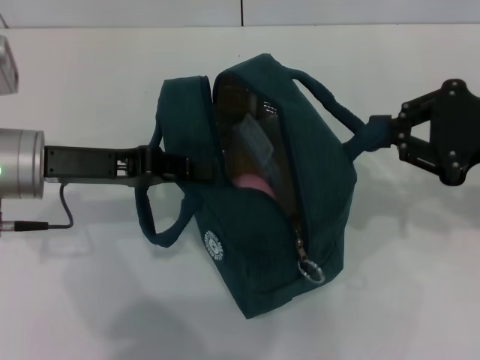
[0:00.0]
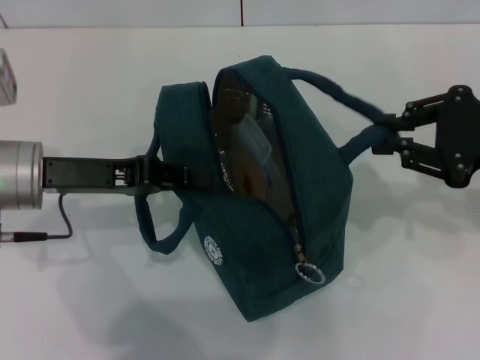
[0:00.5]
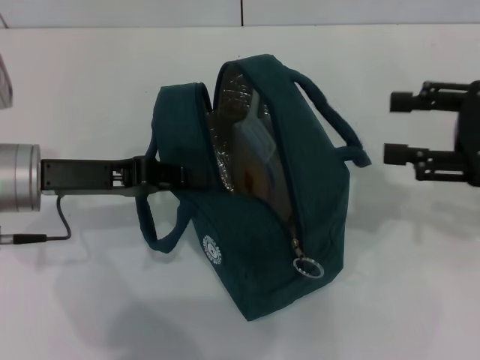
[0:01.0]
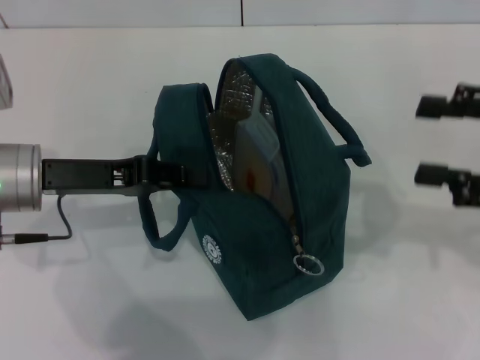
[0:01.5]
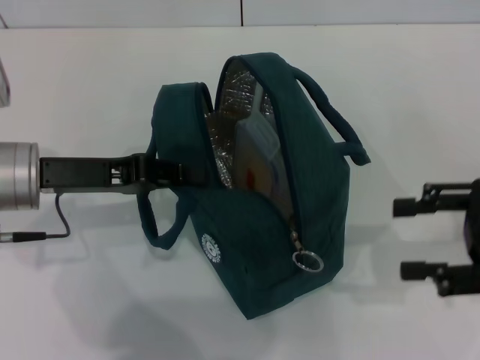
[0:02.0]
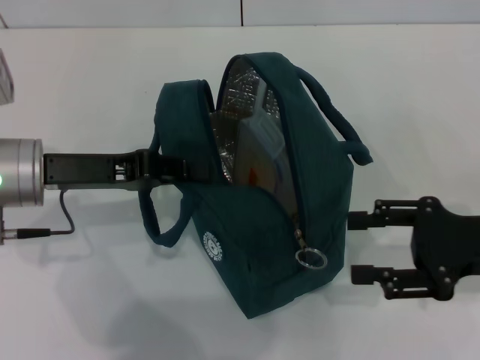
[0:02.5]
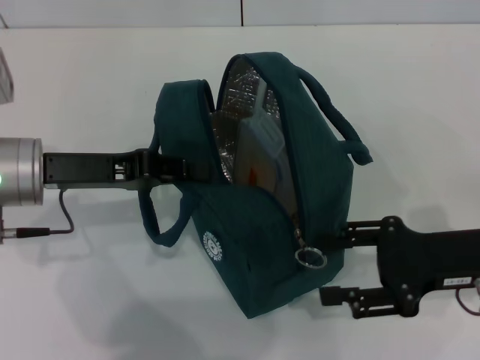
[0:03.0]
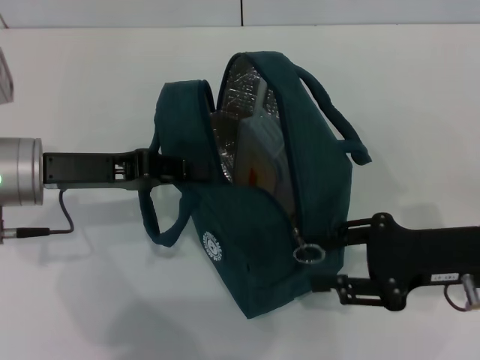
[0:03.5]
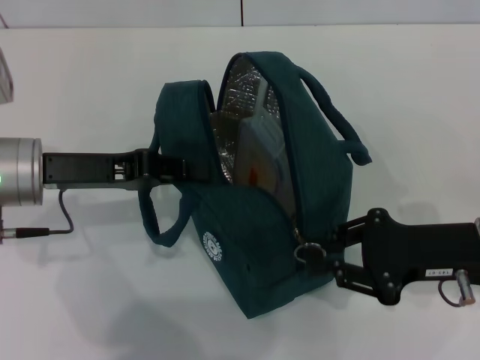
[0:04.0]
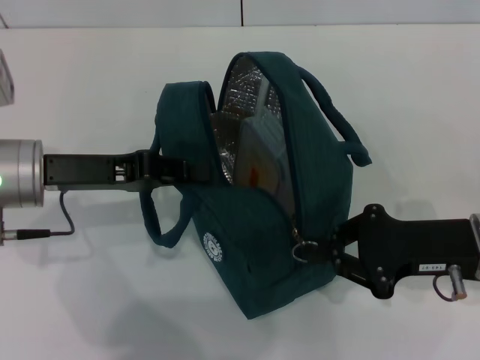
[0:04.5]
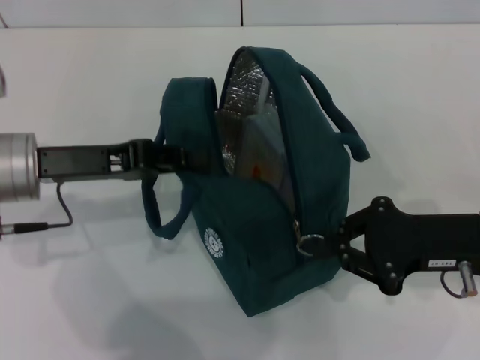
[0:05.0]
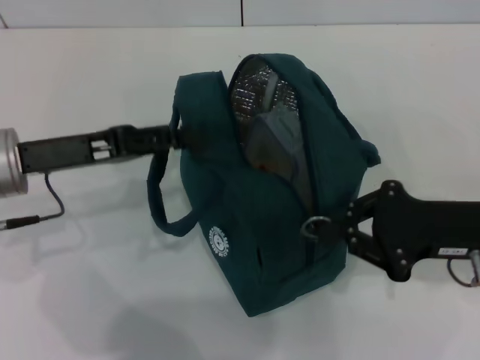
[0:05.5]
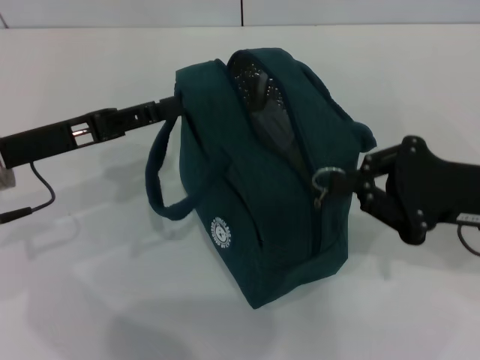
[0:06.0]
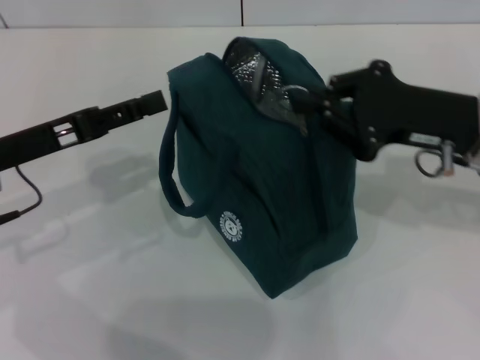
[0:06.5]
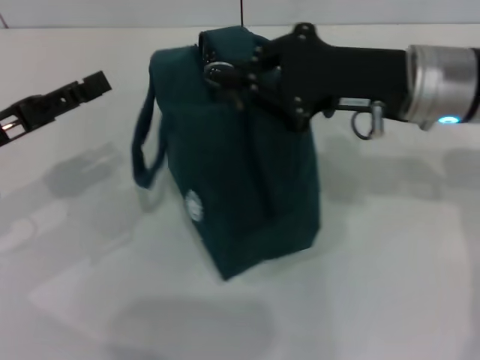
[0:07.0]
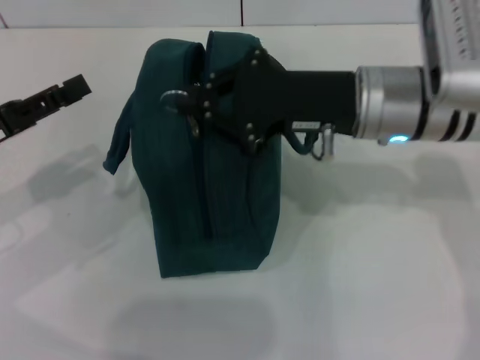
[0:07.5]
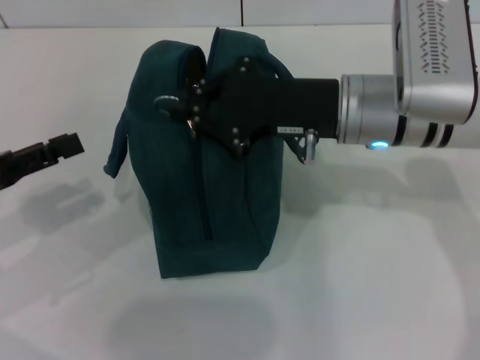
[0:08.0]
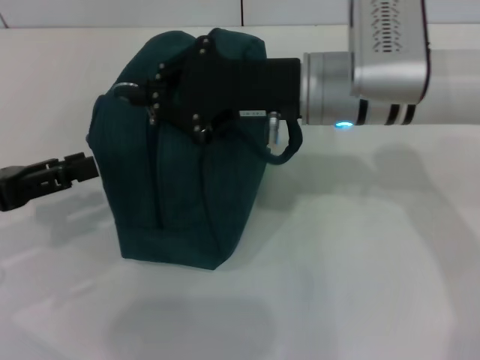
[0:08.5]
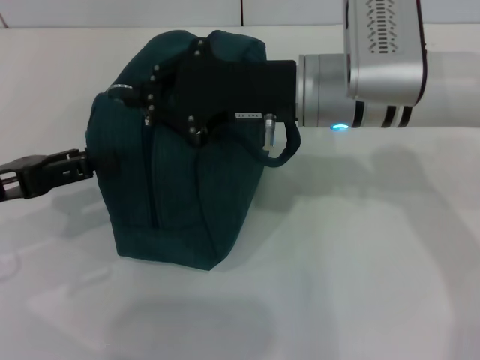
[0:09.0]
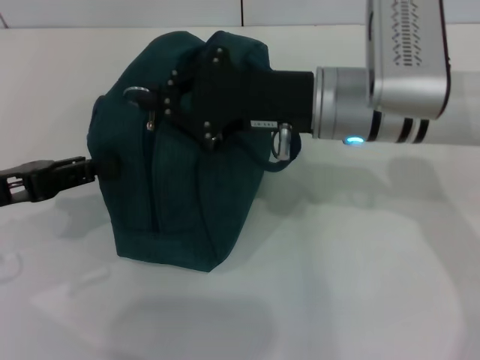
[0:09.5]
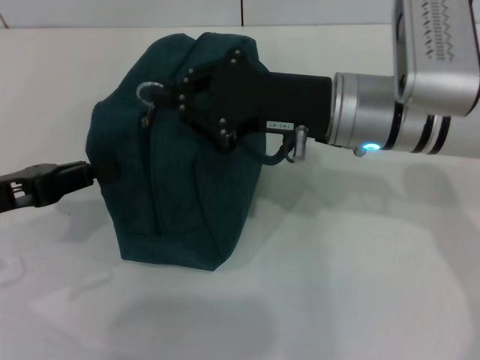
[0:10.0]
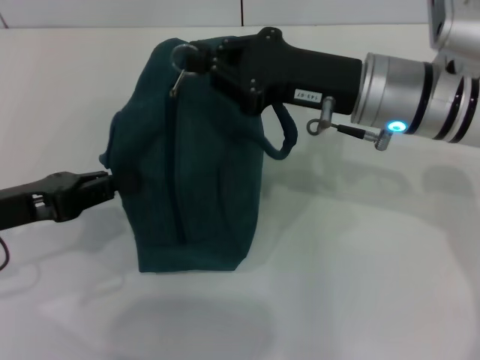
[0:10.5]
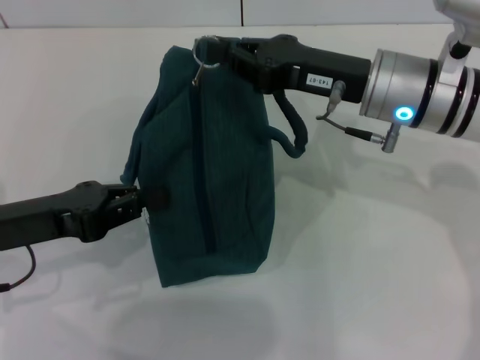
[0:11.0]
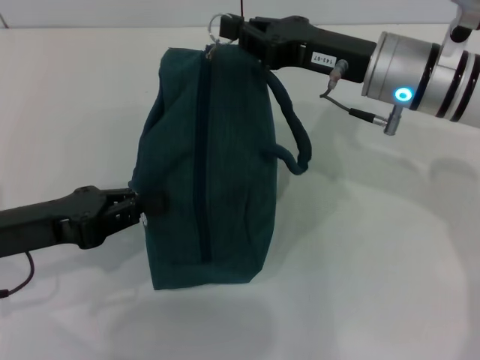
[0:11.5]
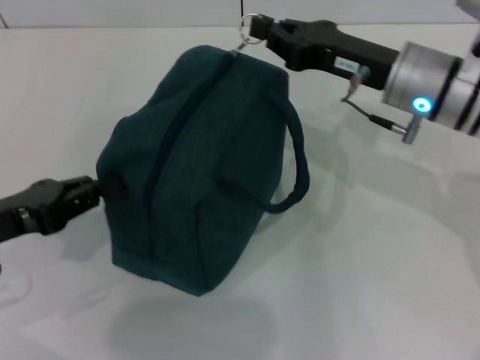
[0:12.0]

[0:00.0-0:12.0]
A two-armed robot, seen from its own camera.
0:00.0 to 0:02.0: The right gripper travels backward by some 5 cm, and opens its fingers.
0:02.0 to 0:04.0: The right gripper travels to the left and downward by some 10 cm, and closes up.
0:04.0 to 0:06.0: The left gripper opens its fingers.
0:06.0 to 0:08.0: The left gripper is displaced to the left and backward by approximately 10 cm. Meanwhile the right gripper moves to the left and forward, some 15 cm.
0:08.0 to 0:10.0: The left gripper closes its fingers.
0:10.0 to 0:12.0: The right gripper heads to the right, covering about 5 cm.

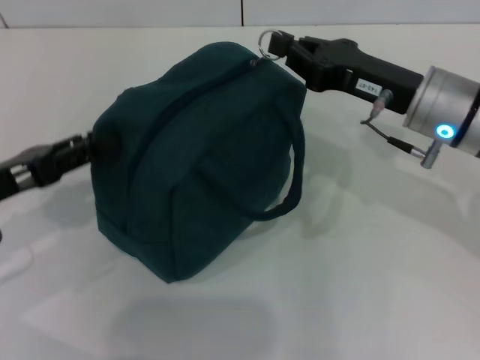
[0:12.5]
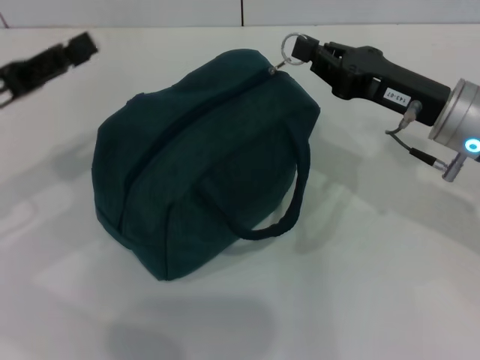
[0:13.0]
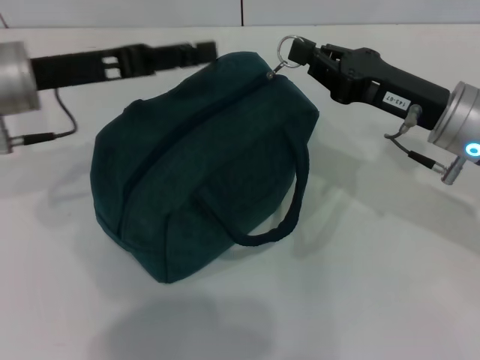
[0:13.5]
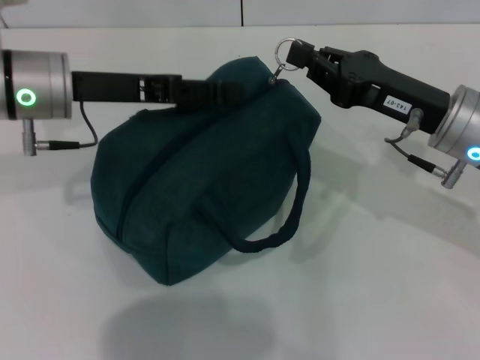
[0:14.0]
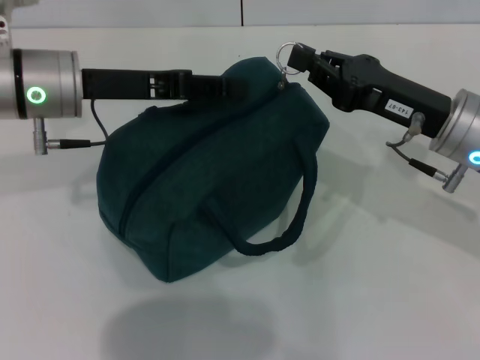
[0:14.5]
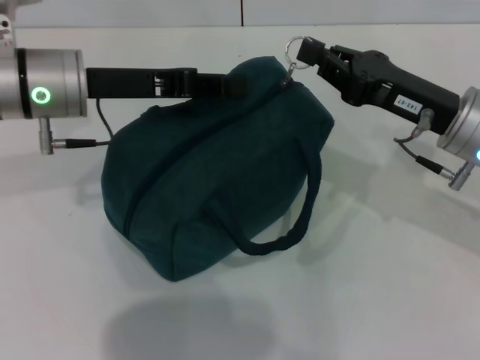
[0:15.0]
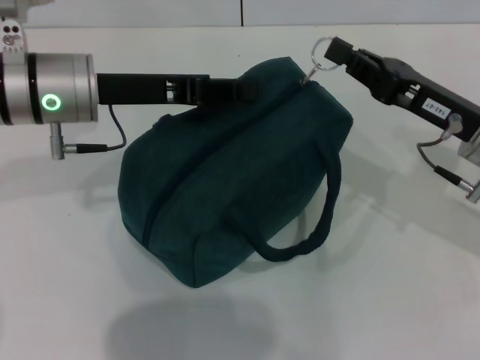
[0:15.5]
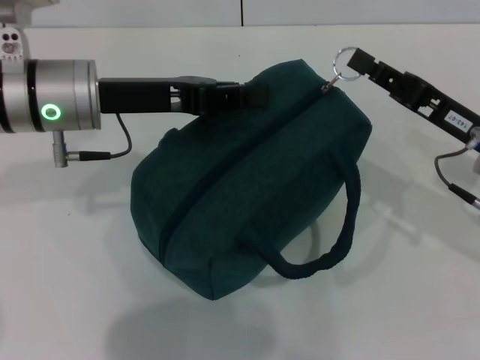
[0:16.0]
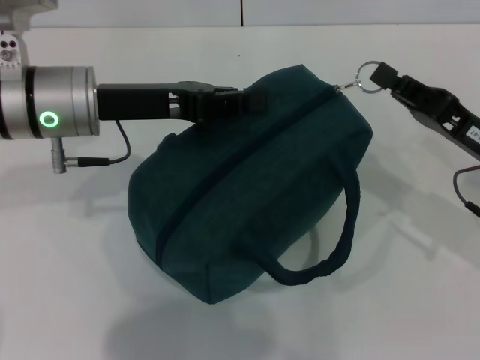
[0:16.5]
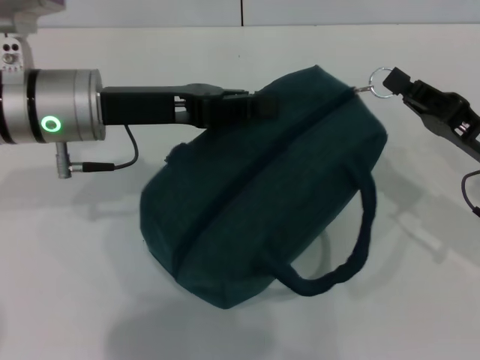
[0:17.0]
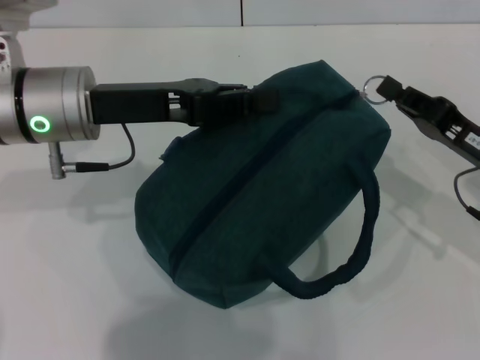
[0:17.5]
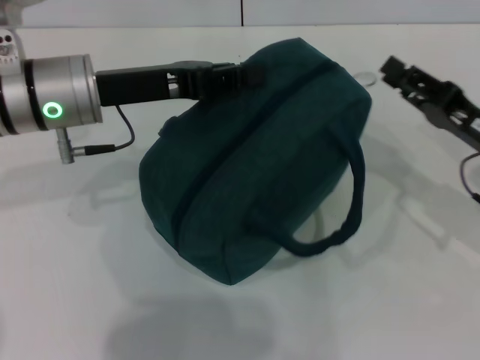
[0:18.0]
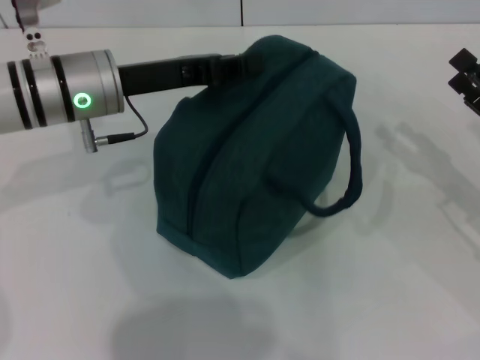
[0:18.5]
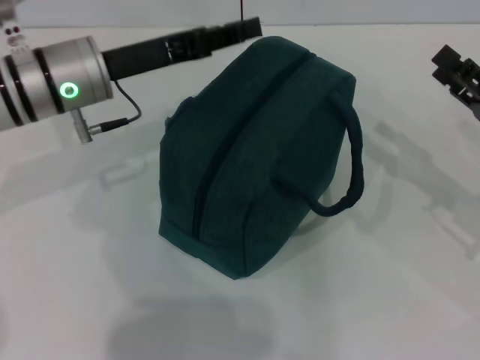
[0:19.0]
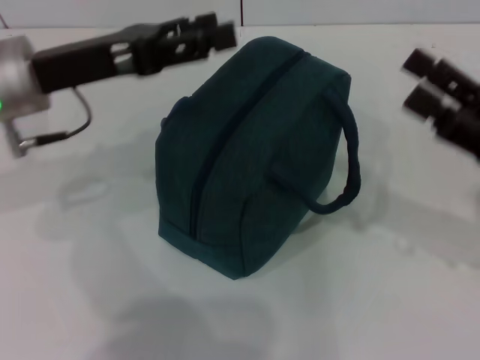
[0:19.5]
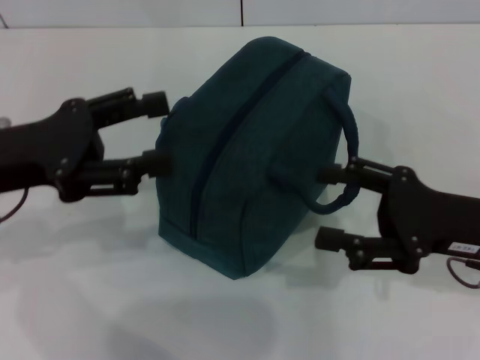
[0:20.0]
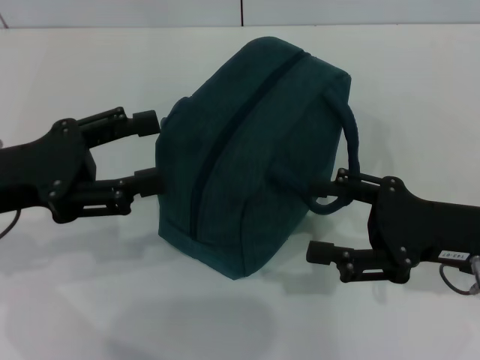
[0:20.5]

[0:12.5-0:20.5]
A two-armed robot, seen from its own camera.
Step, 0:12.5 to 0:17.5: Zip up the lunch bag with your right hand.
0:12.5 to 0:14.5: The left gripper goes about 15 cm forward, to the right and upward, and opens, then closes once more.
0:14.5 to 0:16.5: The left gripper closes its fingers, while the right gripper travels to the right by roughly 5 cm.
0:16.5 to 0:18.5: The right gripper heads to the right, covering roughly 5 cm, and opens.
0:18.5 to 0:20.5: The right gripper goes roughly 10 cm to the left, and opens. Meanwhile the left gripper heads backward and to the left, covering some 15 cm, and opens up.

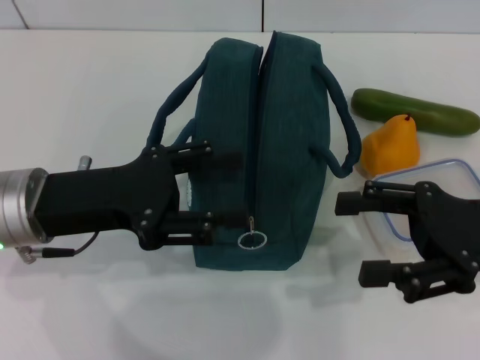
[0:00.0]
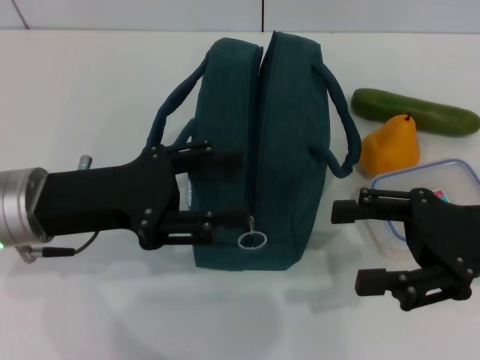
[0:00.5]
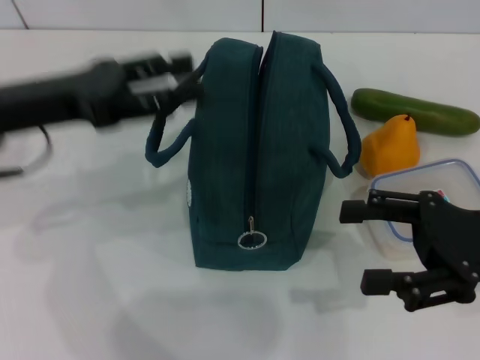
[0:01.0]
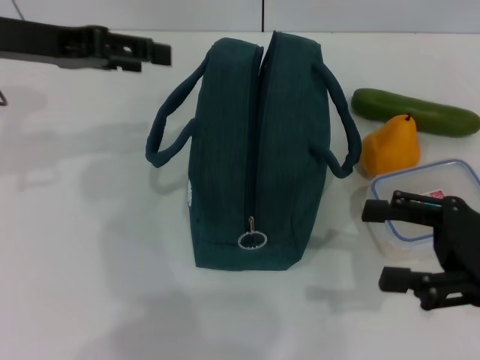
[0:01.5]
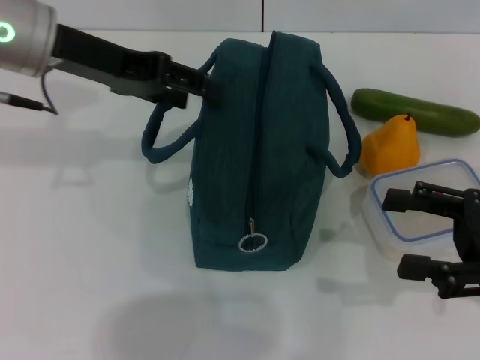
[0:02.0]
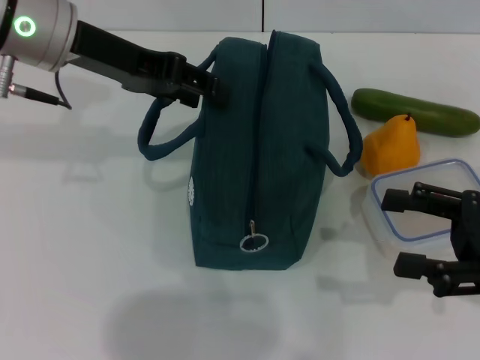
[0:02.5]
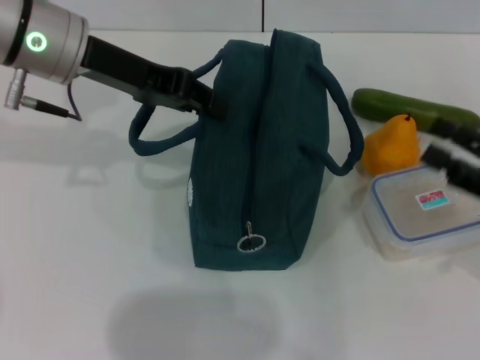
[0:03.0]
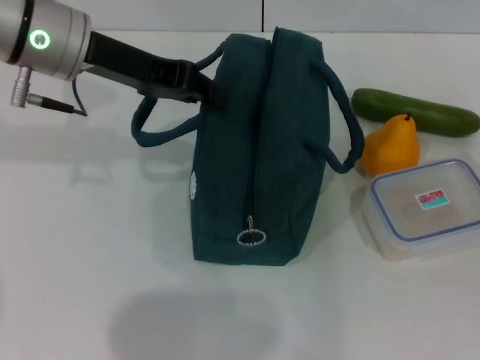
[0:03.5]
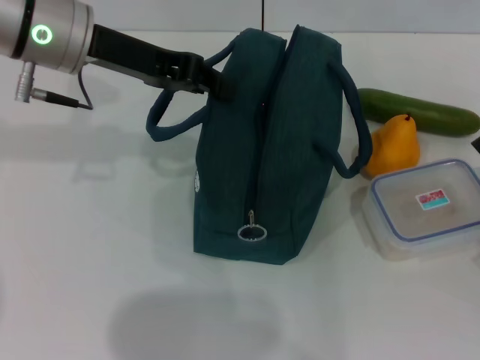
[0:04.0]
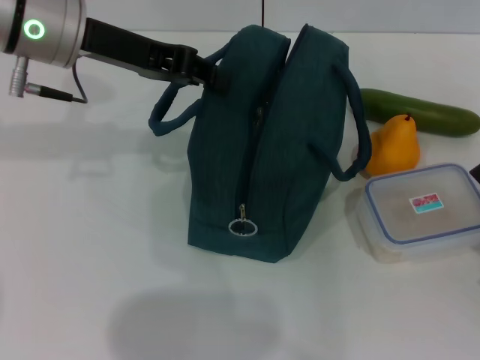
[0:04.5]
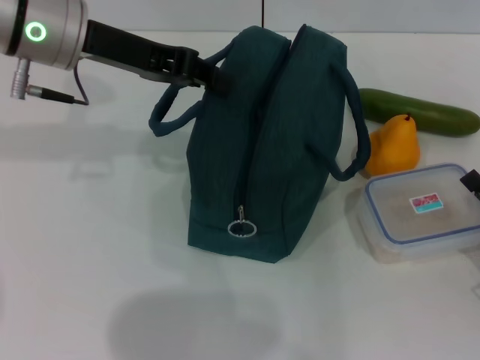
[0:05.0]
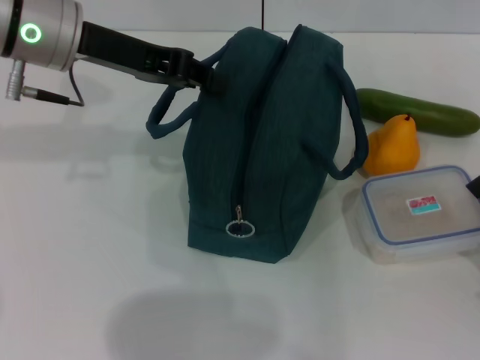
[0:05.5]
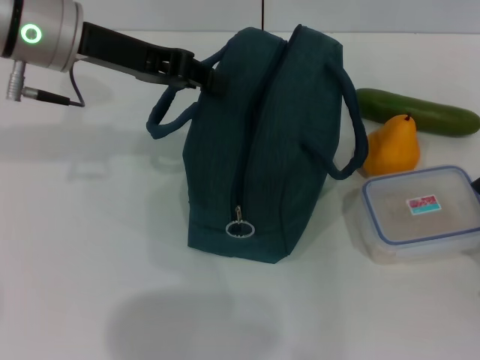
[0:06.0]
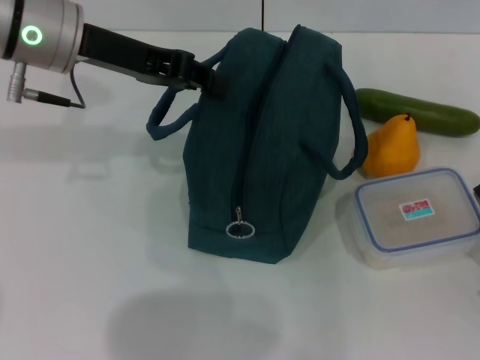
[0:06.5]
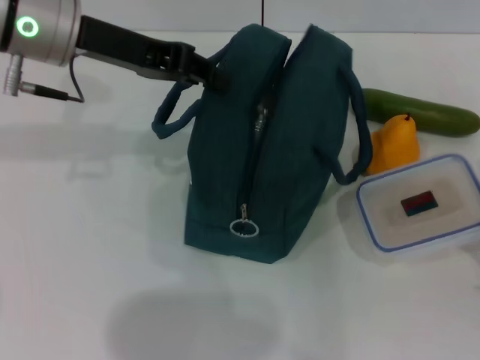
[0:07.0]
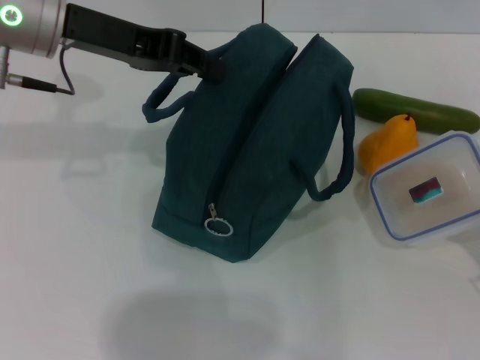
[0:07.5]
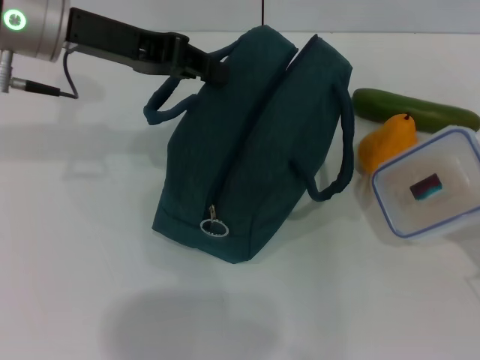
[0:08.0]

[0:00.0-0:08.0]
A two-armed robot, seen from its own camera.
Step, 0:00.0 to 0:04.0: Hold the lunch bag with your left hand.
Step, 0:04.5 to 0:07.0: Pick up the lunch box with your right hand.
0:00.0 to 0:02.0: The left gripper heads forward and upward, covering some 15 cm.
0:02.0 to 0:04.0: The right gripper moves downward, approximately 10 cm. Meanwhile the left gripper closes.
0:04.0 to 0:06.0: The right gripper closes.
0:06.0 to 0:08.0: The right gripper closes up.
